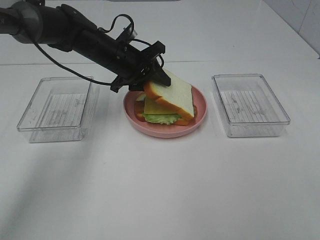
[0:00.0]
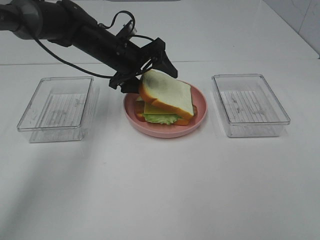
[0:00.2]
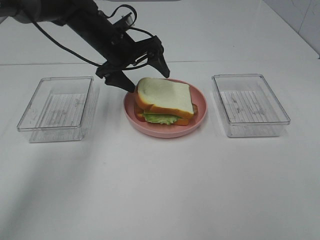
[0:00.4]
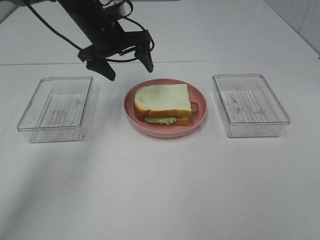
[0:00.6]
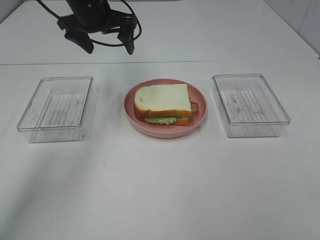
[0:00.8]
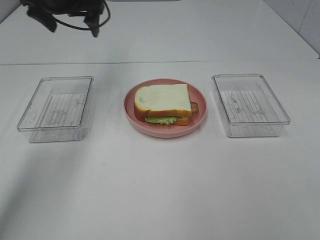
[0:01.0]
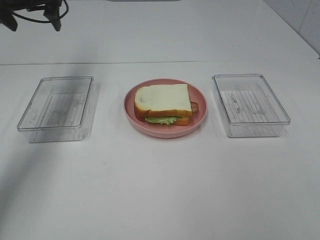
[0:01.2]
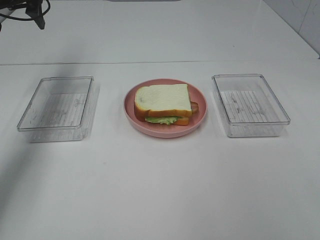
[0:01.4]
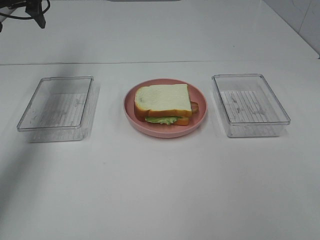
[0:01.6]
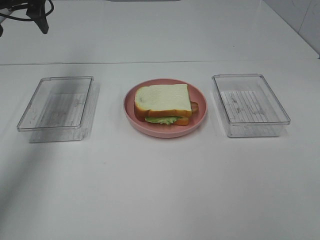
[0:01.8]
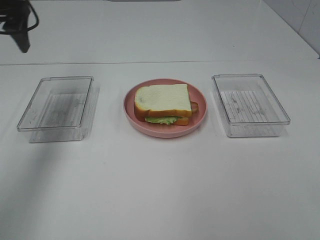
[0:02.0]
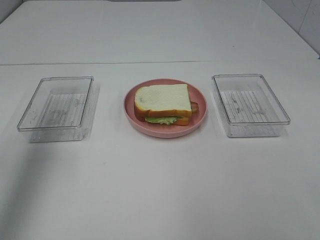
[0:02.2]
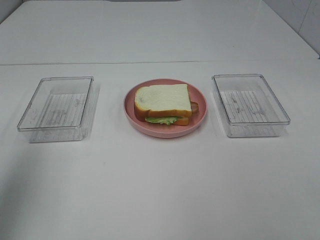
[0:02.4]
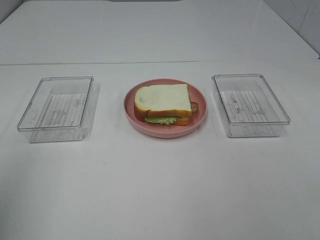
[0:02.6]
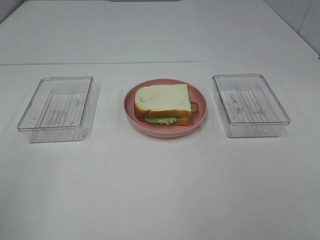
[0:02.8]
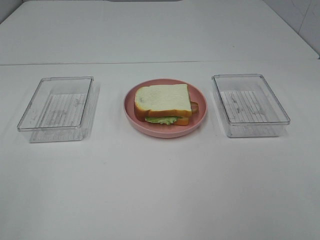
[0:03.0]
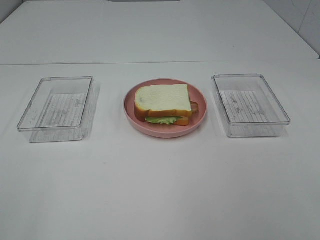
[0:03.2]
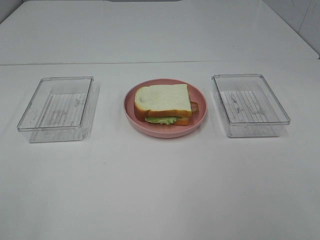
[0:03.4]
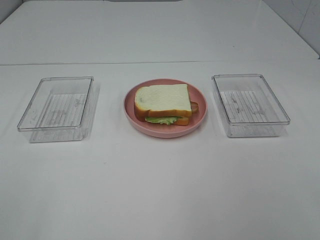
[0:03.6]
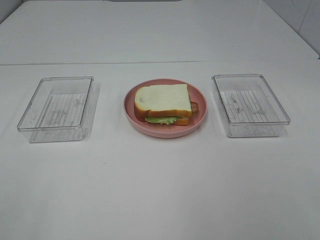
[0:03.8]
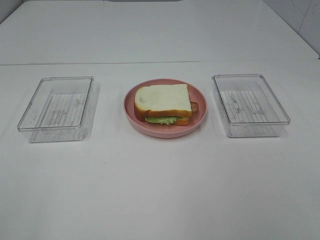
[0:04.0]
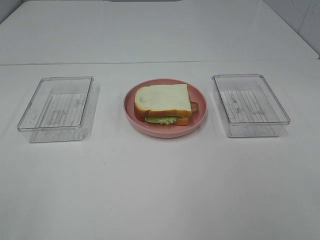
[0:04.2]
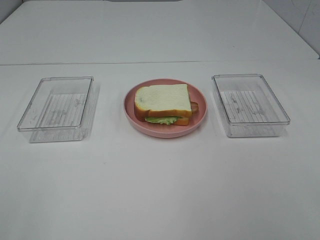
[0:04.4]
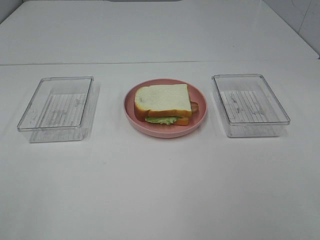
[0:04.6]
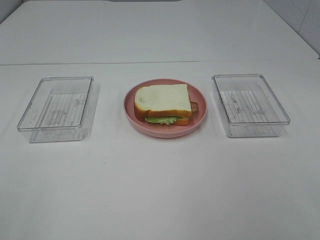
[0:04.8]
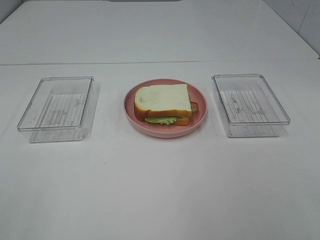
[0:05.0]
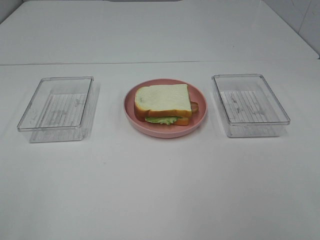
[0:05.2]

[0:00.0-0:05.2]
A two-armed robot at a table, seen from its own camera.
Task of the whole recording: Make sandwiches.
0:00.0 to 0:01.8: The left gripper is displaced to the left and upward by some 25 cm, and opens up.
0:01.8 to 0:03.4: The left gripper moves backward, roughly 50 cm.

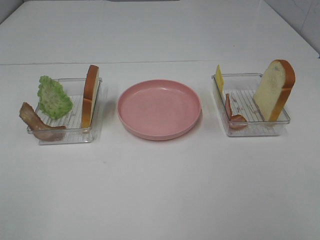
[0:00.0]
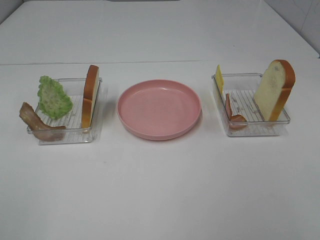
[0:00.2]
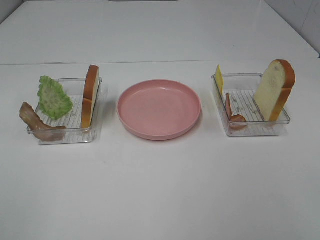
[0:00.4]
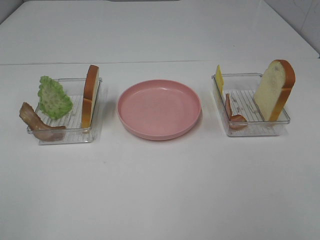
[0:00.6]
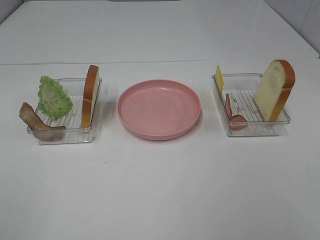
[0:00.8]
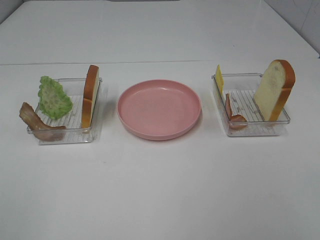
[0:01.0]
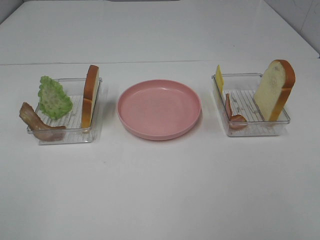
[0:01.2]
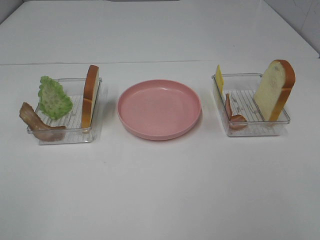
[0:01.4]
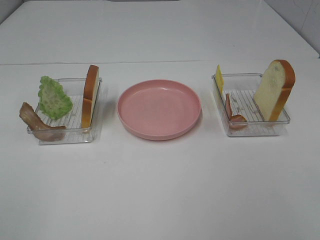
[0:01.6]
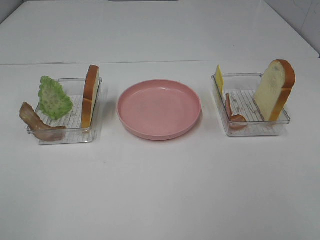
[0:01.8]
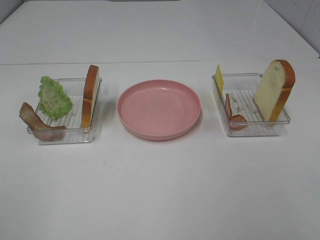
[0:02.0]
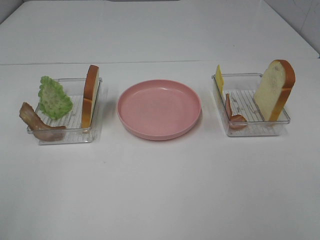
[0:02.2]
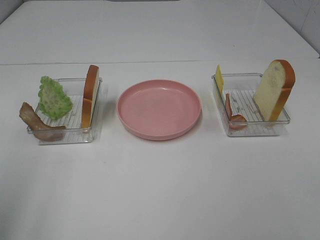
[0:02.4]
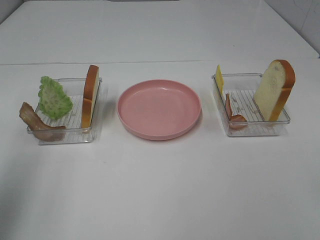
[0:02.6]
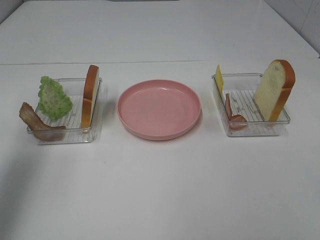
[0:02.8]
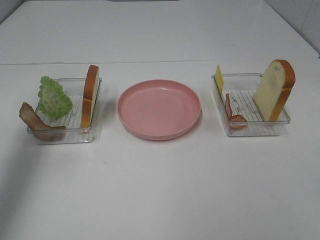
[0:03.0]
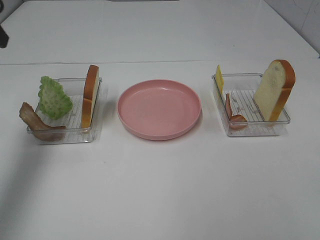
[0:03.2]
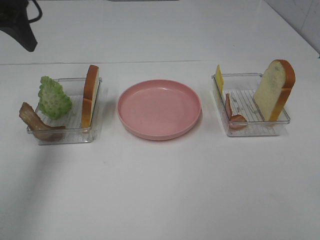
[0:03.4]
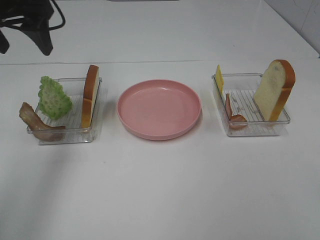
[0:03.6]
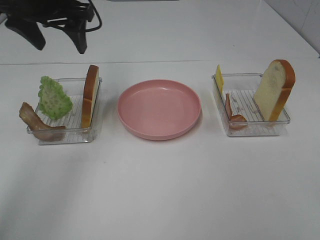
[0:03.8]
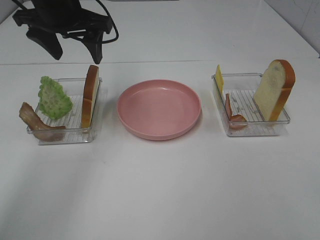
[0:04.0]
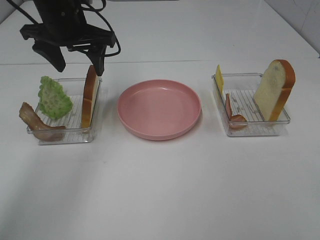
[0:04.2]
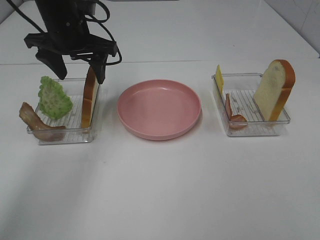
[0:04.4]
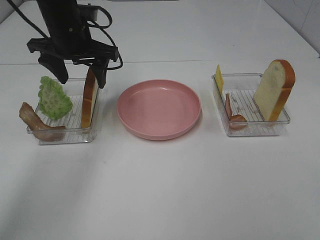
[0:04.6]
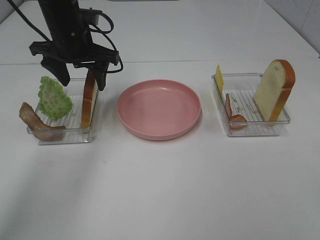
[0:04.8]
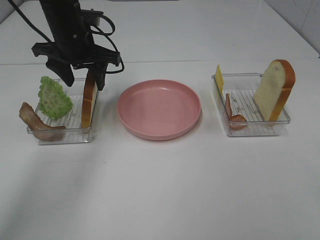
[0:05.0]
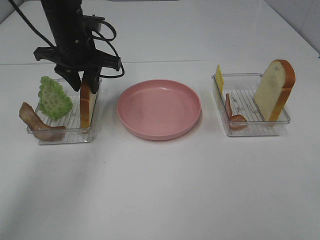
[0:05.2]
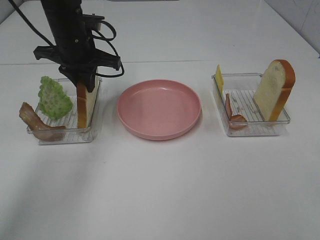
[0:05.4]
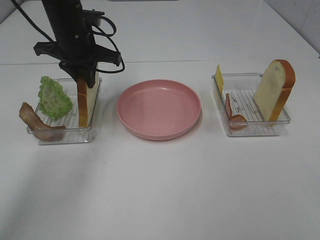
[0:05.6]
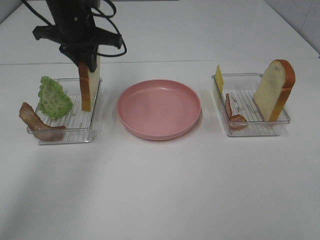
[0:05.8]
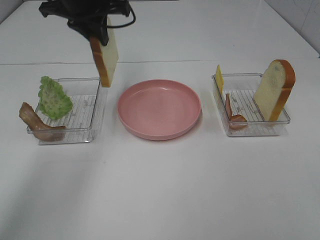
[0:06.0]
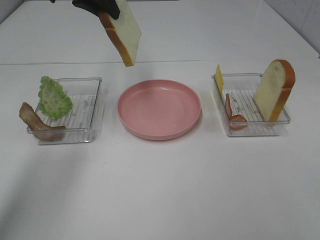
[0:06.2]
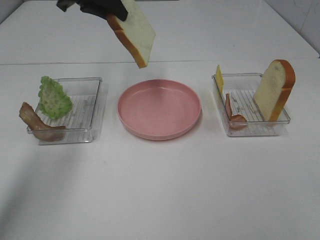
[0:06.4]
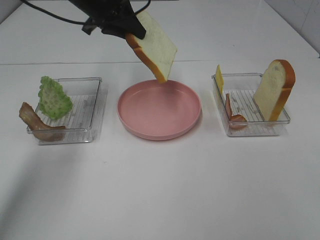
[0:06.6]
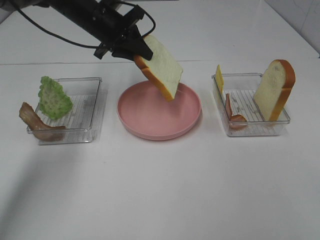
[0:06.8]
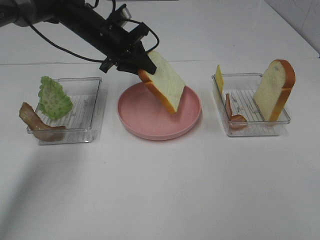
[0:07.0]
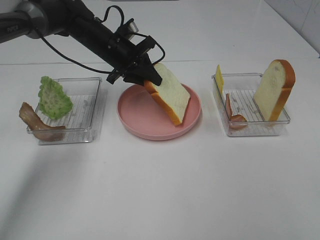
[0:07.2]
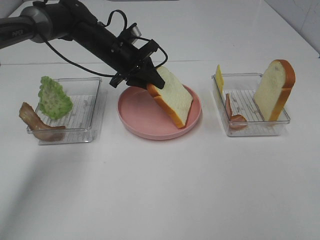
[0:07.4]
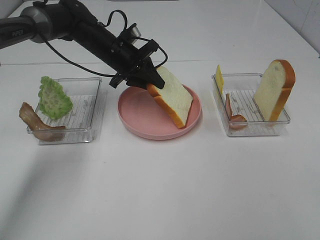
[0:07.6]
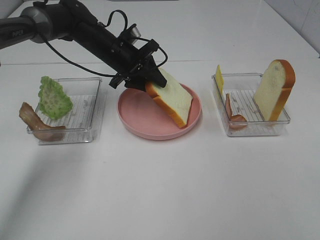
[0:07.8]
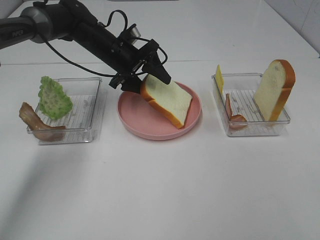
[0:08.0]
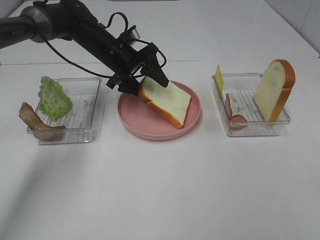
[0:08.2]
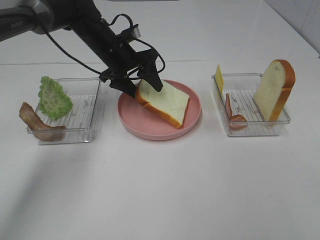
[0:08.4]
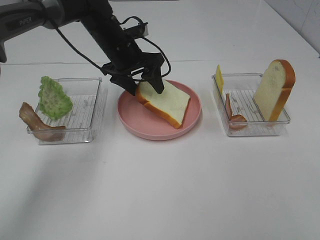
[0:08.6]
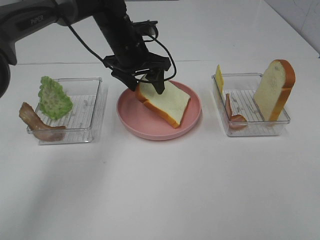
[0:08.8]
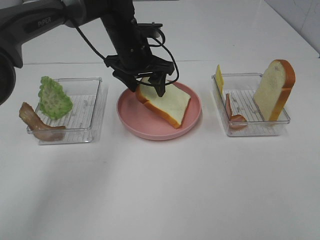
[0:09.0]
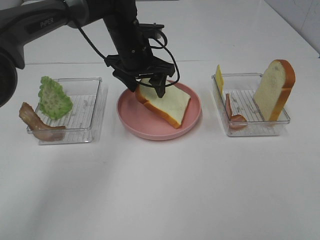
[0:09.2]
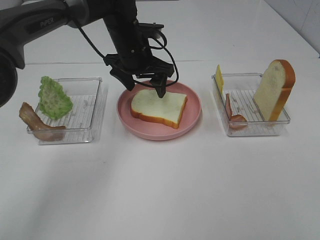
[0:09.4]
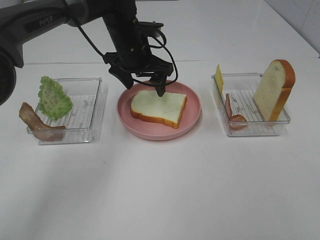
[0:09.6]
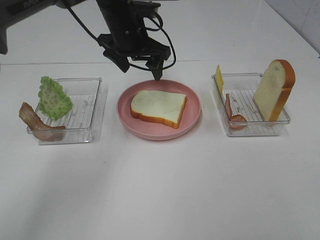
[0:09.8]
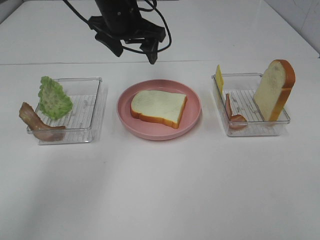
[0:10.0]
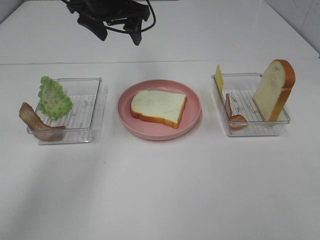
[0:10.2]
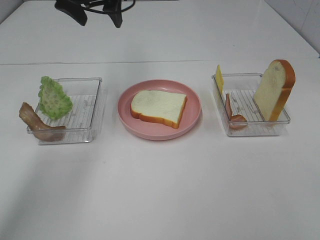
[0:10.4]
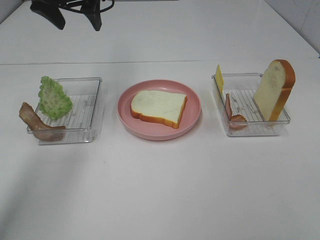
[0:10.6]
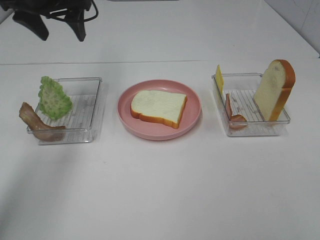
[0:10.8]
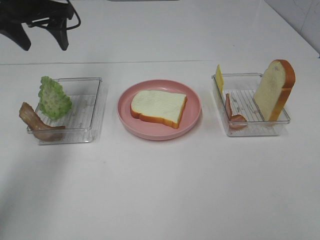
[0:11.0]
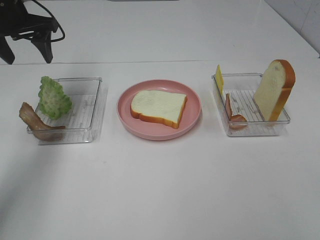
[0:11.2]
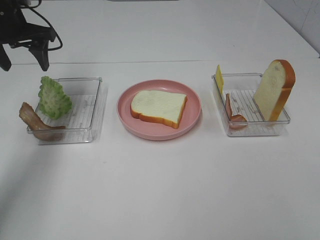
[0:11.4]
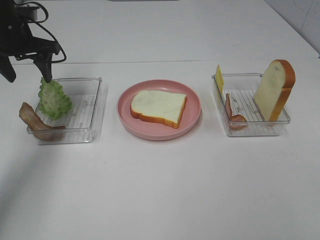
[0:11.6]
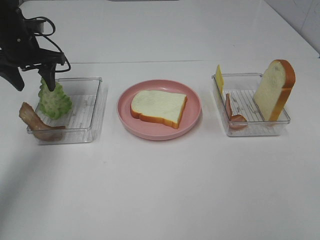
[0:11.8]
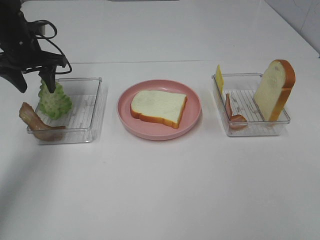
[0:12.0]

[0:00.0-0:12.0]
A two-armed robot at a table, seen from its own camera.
Task of the whole recording: Make sandwiches.
Step, 0:00.0 to 0:05.2: Left hand:grab the bread slice.
Step, 0:05.4 to 0:09.4: Left hand:place the bread slice on the plate.
0:00.0 to 0:01.6: Neither gripper changes place.
0:01.6 to 0:03.0: The left gripper moves forward, roughly 30 cm.
0:03.0 to 0:04.4: The left gripper shifts roughly 25 cm to the right, forward and downward.
0:04.4 to 0:06.0: The left gripper goes roughly 5 cm upward, and closes up.
0:06.0 to 0:07.6: The left gripper heads downward, covering approximately 15 cm.
0:07.6 to 0:09.0: The left gripper changes place by some 5 cm, and opens.
0:09.0 to 0:10.4: The left gripper moves upward and to the left, approximately 15 cm.
0:10.4 to 0:12.0: The left gripper moves to the left and downward, some 20 cm.

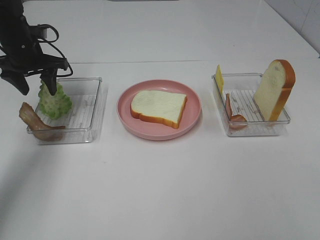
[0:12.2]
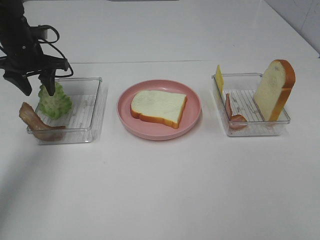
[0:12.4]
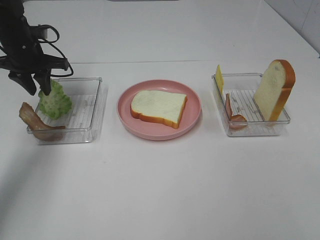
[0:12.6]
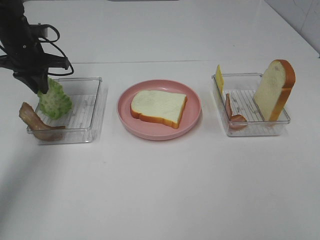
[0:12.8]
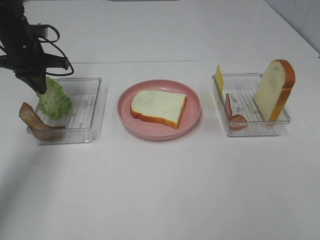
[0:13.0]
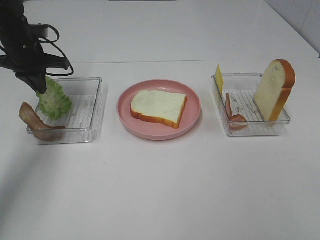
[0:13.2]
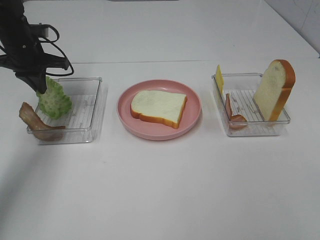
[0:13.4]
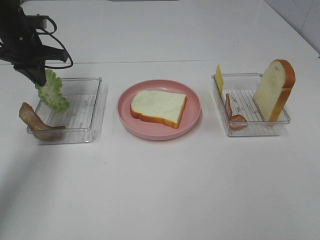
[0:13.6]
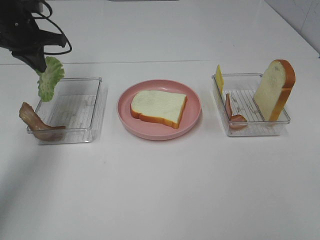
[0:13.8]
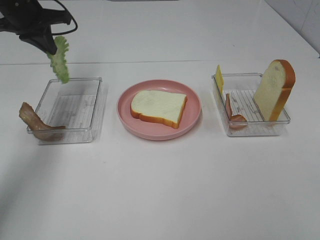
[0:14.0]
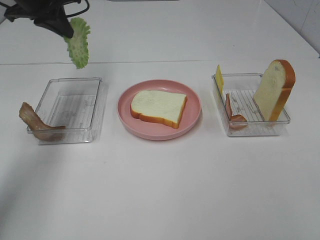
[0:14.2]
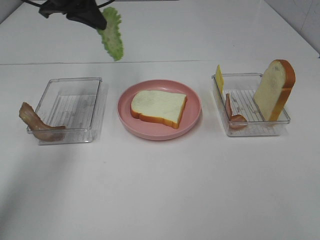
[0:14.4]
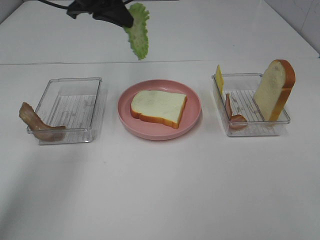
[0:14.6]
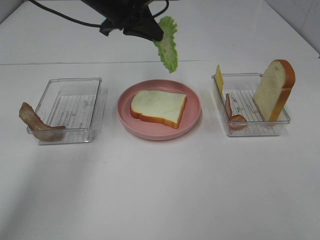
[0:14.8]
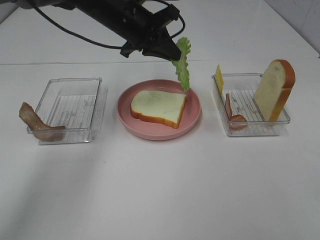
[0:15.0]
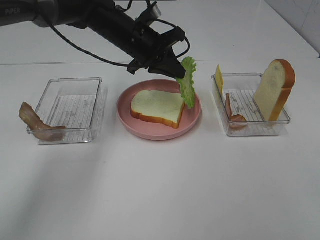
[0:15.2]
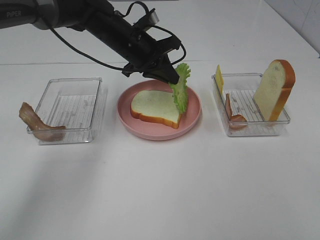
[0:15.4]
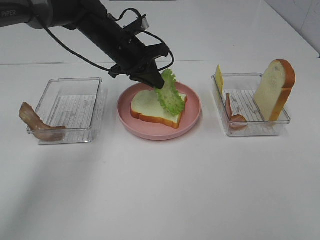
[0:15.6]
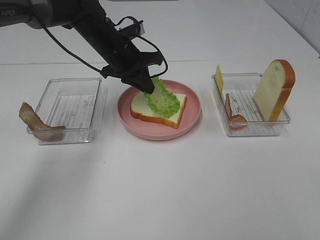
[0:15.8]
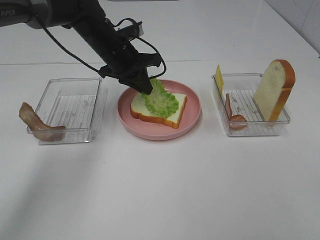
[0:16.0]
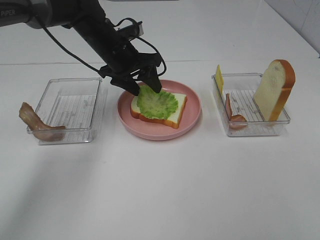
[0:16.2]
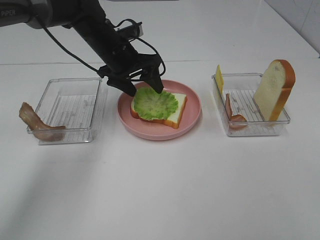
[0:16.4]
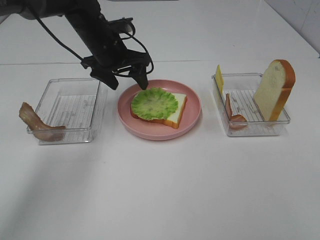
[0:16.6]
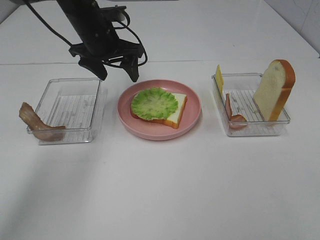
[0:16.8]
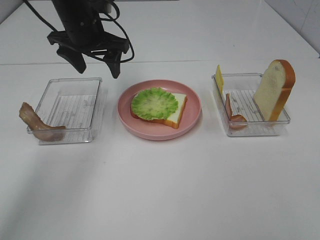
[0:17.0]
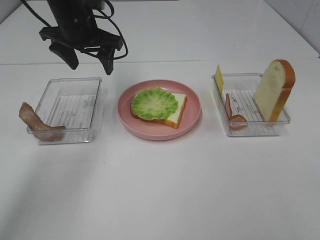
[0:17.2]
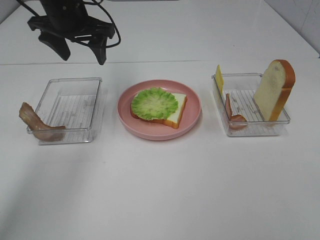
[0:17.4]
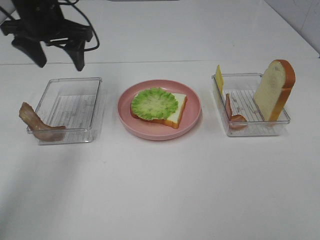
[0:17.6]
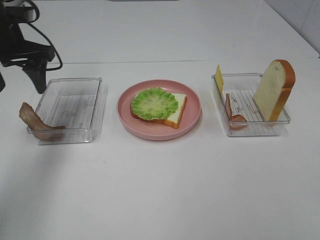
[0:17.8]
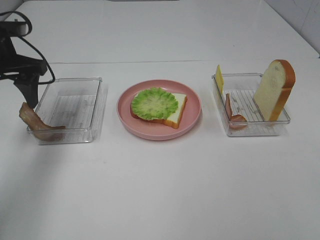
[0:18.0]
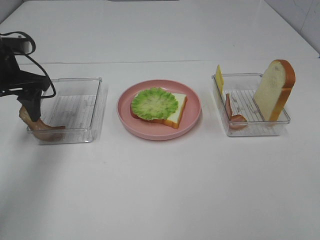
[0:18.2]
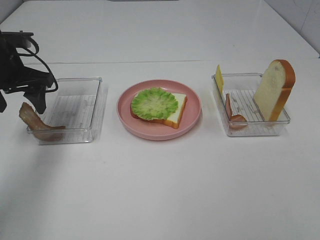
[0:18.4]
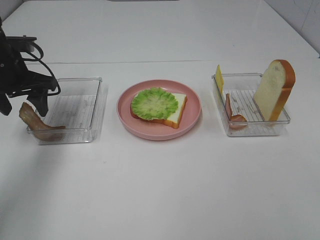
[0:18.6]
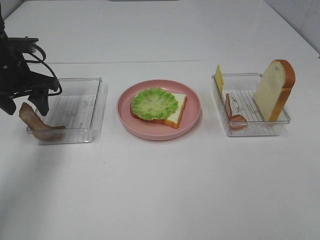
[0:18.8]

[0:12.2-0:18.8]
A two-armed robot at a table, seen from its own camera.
Task of the whole recording: Make sandwiches.
Step, 0:13.4 to 0:16.4: Left hand:place the lettuce slice on the bread slice.
0:12.2 to 0:13.8: The left gripper is displaced upward by some 5 cm, and closes.
0:13.8 to 0:15.4: The left gripper shifts some 20 cm to the right.
0:15.4 to 0:17.2: The left gripper shifts about 10 cm to the left and upward, and opens its fingers.
0:17.2 to 0:18.8: The left gripper moves to the left, backward and downward, some 15 cm.
